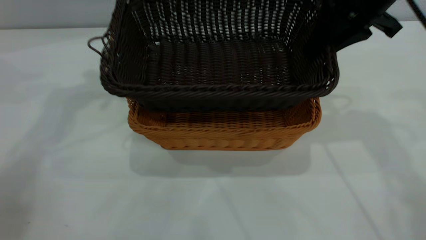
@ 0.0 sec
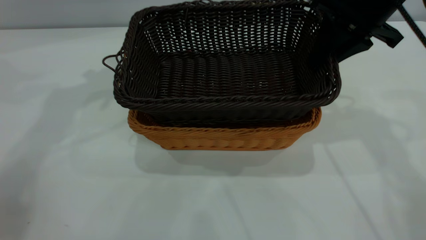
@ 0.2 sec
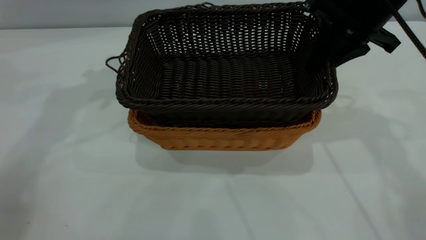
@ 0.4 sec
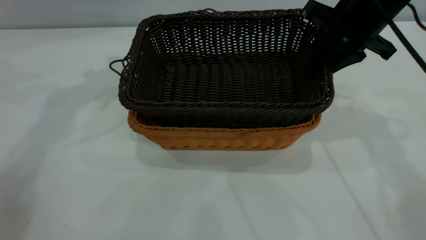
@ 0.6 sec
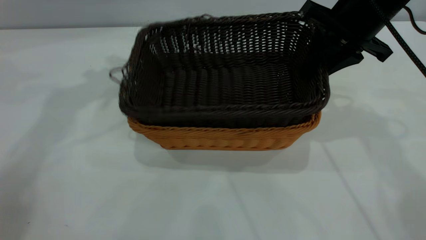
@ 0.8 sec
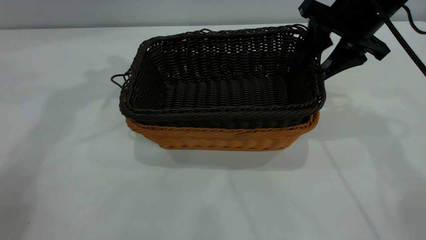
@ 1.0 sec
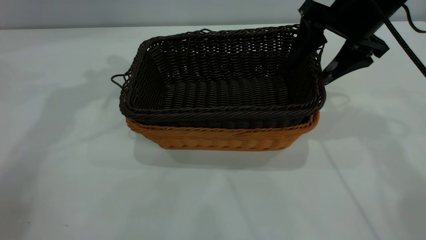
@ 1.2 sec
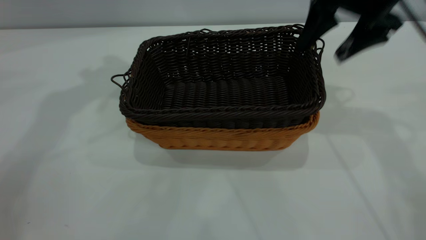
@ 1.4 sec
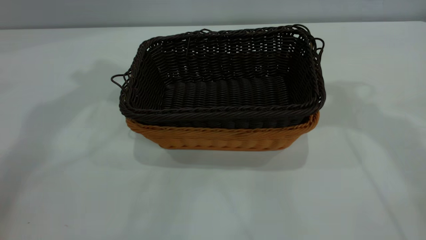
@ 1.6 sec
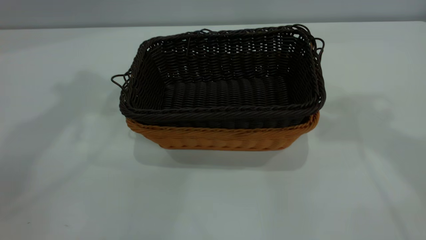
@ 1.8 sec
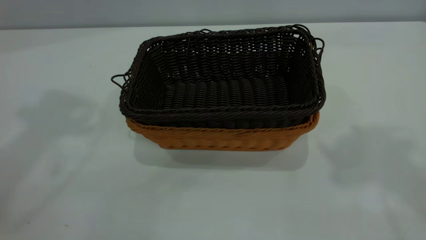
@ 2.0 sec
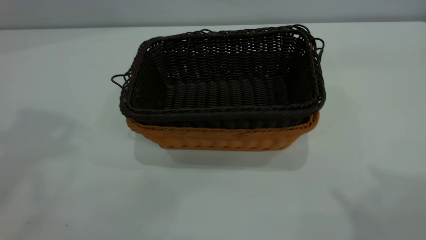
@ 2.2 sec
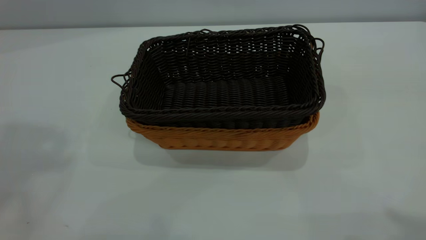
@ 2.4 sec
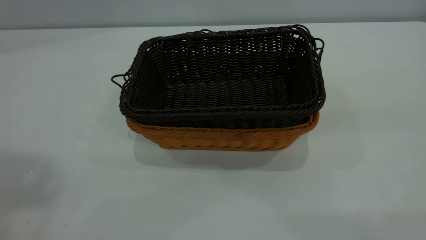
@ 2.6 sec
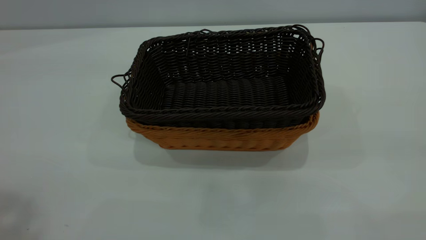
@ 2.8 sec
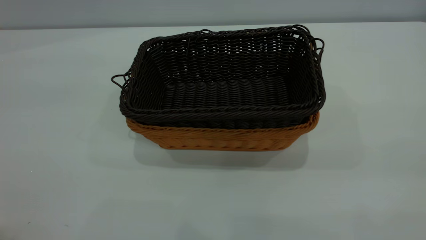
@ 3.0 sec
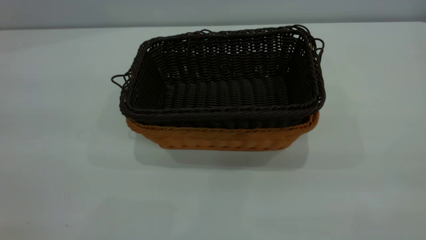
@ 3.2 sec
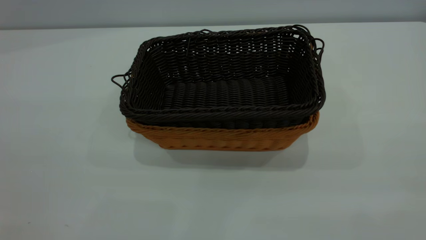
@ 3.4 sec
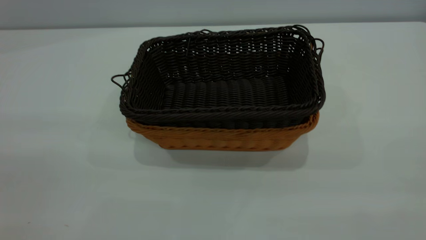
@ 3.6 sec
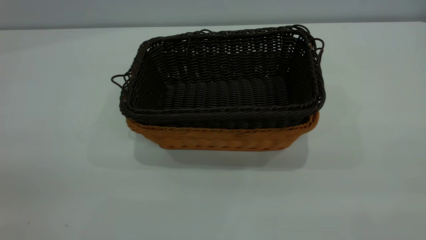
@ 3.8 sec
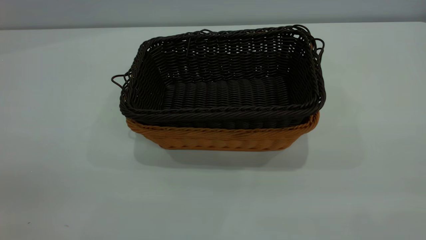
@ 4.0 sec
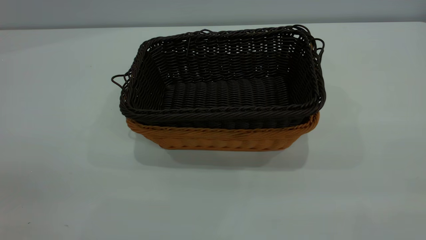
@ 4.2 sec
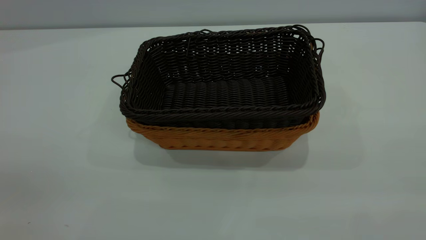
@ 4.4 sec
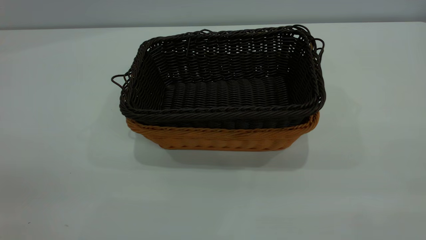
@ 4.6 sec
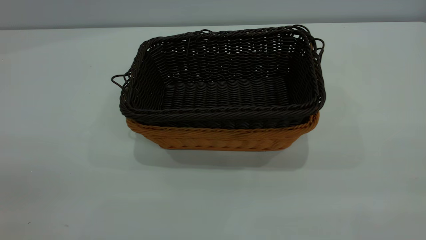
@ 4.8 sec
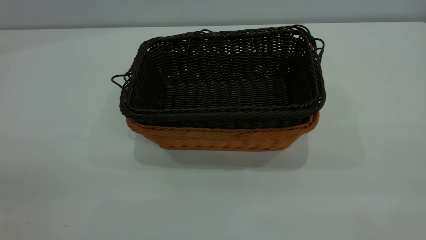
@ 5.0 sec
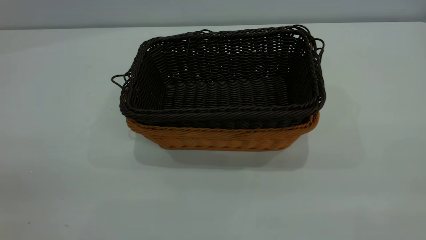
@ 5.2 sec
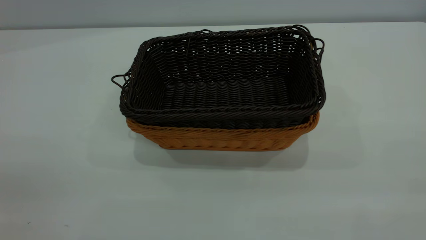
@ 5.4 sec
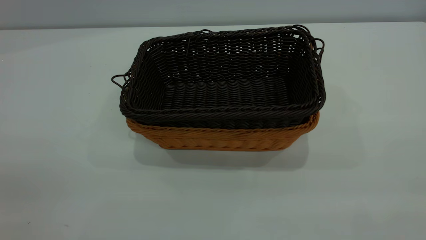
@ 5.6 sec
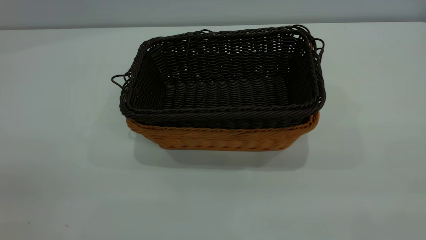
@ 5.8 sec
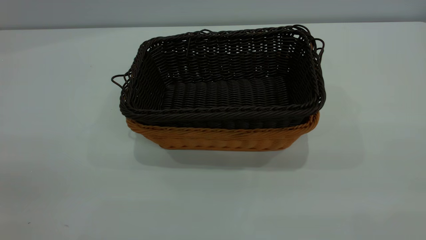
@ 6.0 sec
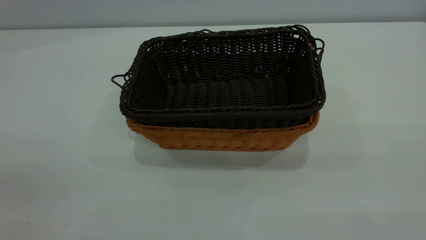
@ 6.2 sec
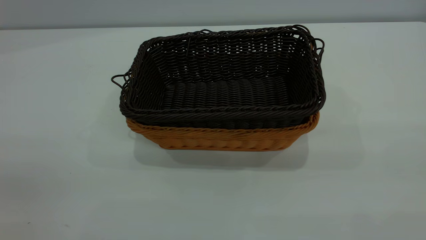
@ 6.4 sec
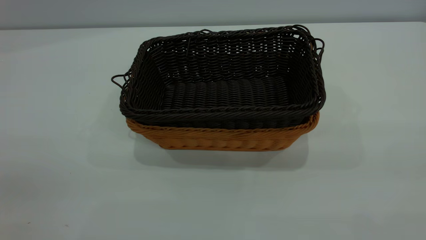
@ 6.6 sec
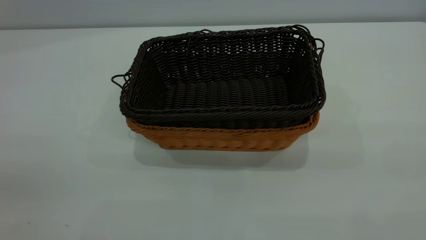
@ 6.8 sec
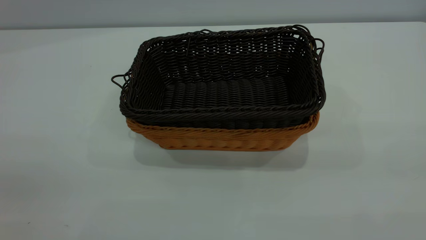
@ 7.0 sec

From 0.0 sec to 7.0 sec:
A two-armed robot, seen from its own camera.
Task of the whole recording: the left gripper grasp the brown basket and place it in the center of the table, the right gripper grasp the black basket and place it inside the brown one.
From 0.0 sec to 1.4 sec: The left gripper ends up about 5 cm from where it was; the right gripper opens up.
From 1.4 sec to 2.8 sec: Both grippers move backward and upward, some 35 cm.
From 4.2 sec to 5.6 sec: Both grippers stay about where they are.
